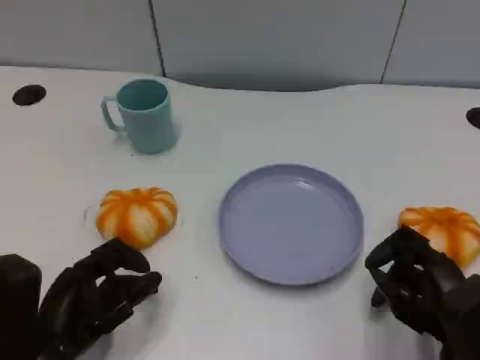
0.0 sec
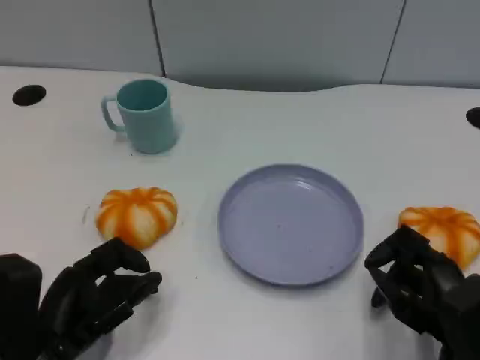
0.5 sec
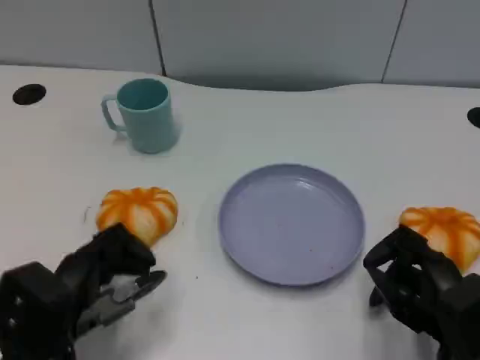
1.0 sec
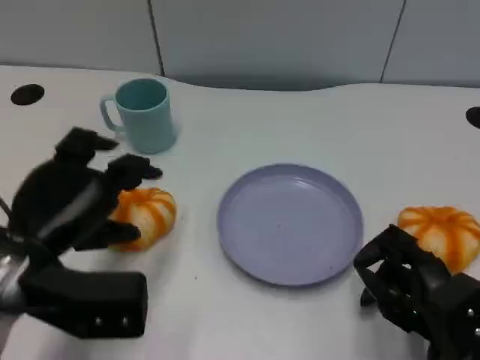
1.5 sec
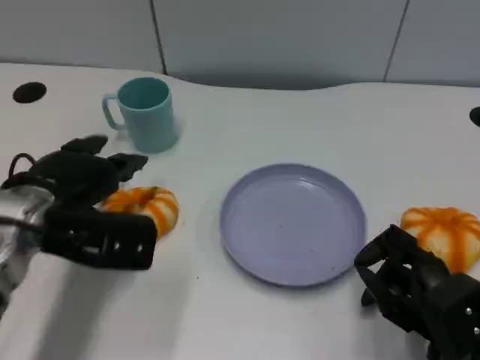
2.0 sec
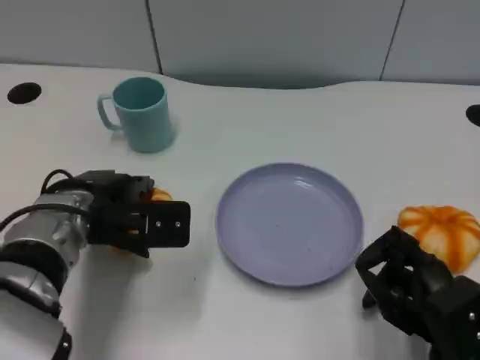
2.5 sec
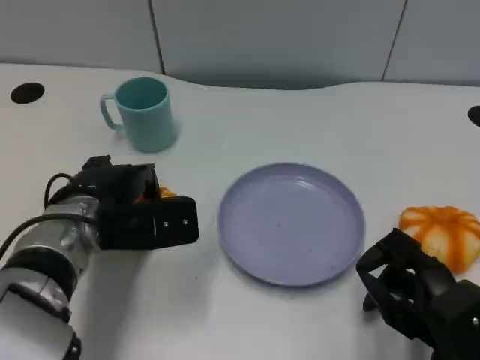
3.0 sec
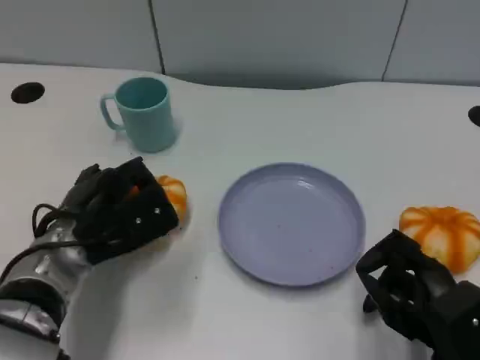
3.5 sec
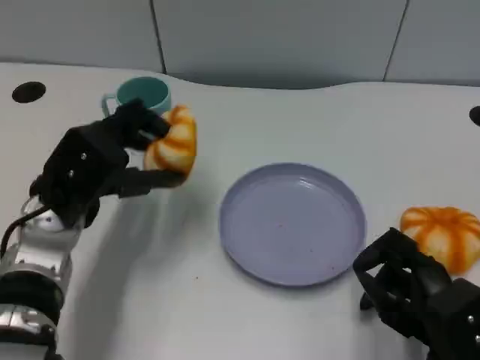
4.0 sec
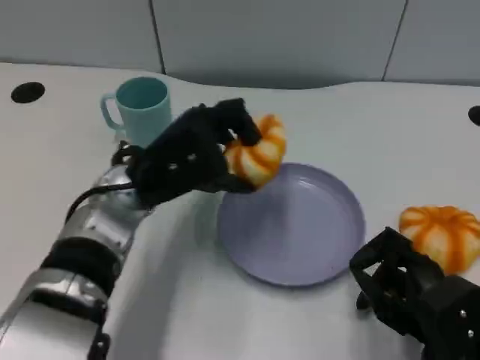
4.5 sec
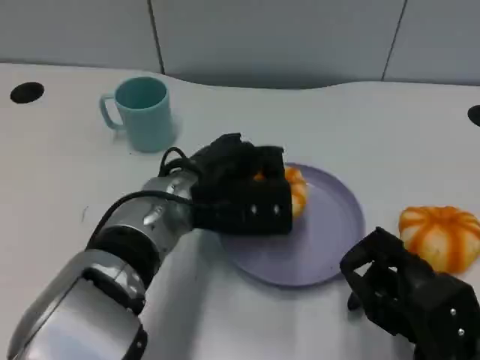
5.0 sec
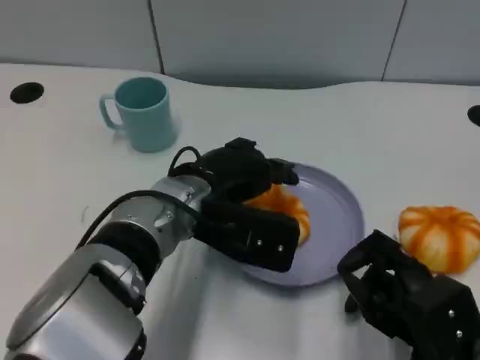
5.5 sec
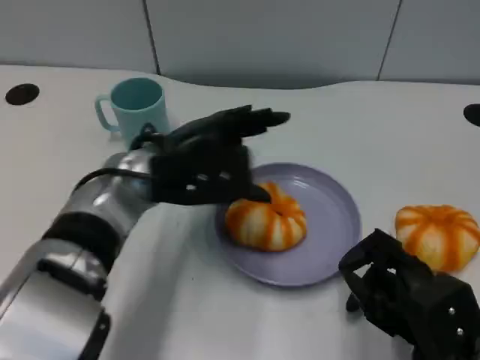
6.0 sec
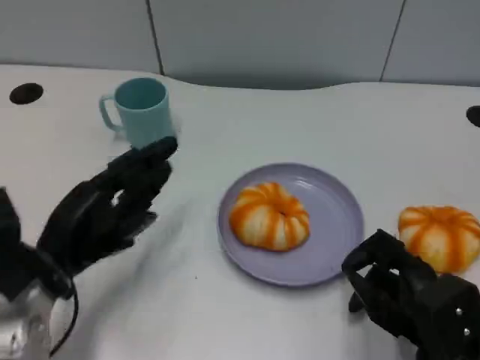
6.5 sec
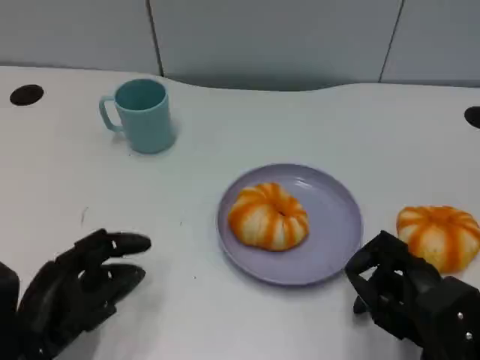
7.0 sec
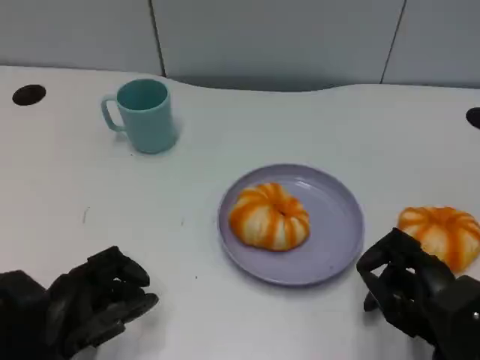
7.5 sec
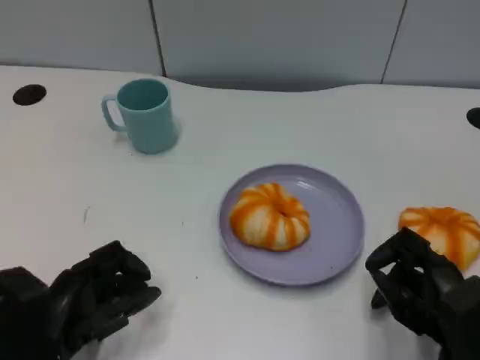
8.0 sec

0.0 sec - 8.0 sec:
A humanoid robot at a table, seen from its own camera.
Task of the whole recording: Grasp the bread from the table and place it into the plate.
0.0 sec - 2.0 sec: The left hand shifts some 15 cm forward and upward.
4.0 sec - 6.0 sec: The left hand travels to the right by some 5 cm.
6.0 sec - 8.0 sec: The left hand heads backward, downward and to the left, covering roughly 20 cm.

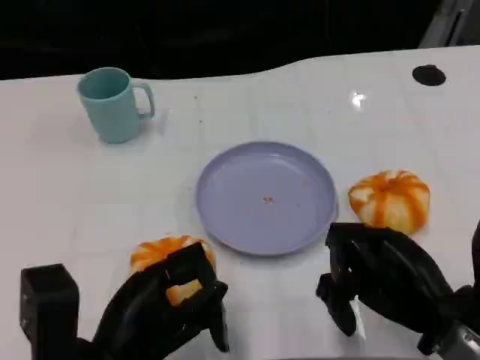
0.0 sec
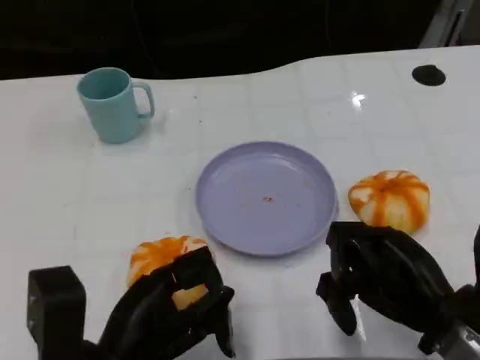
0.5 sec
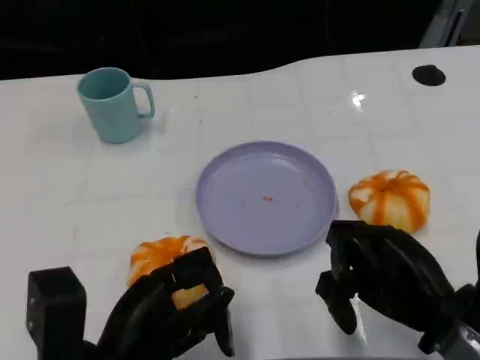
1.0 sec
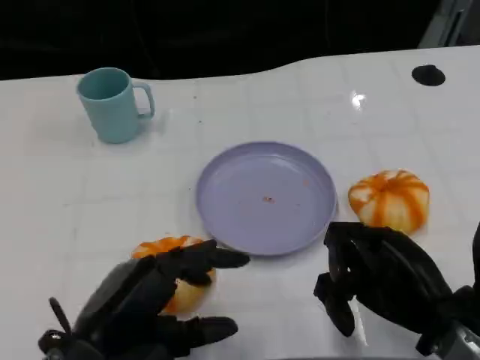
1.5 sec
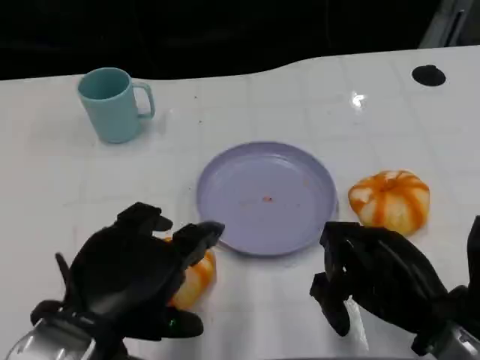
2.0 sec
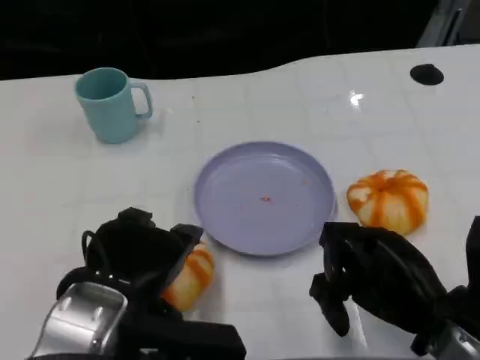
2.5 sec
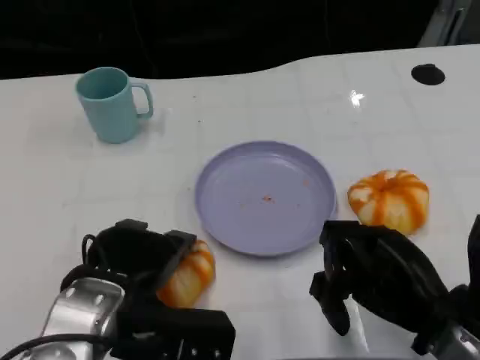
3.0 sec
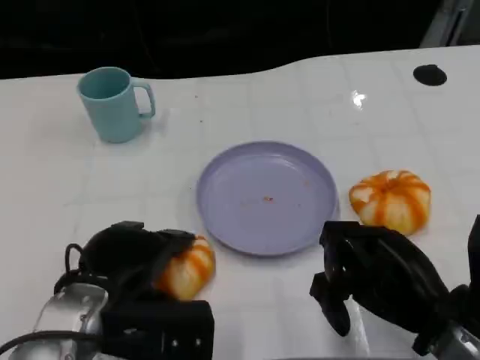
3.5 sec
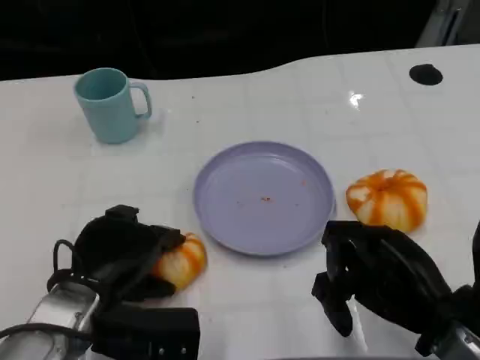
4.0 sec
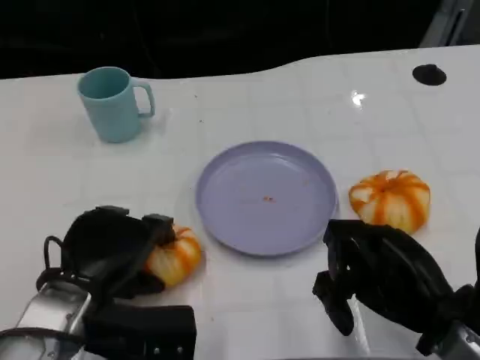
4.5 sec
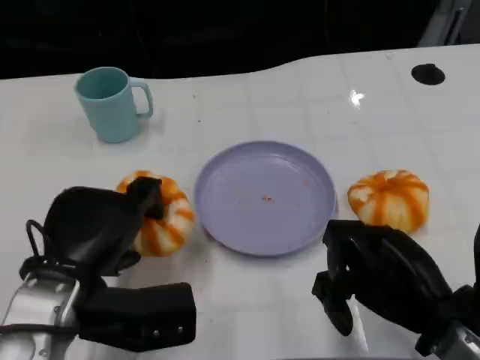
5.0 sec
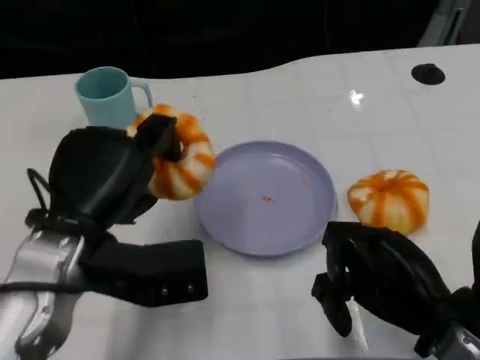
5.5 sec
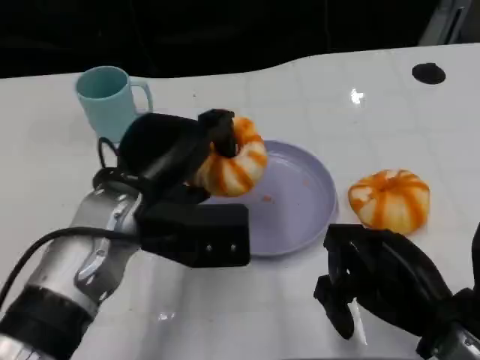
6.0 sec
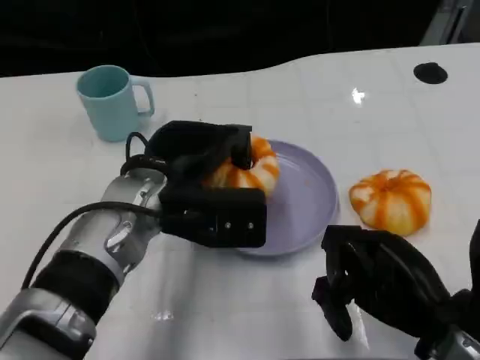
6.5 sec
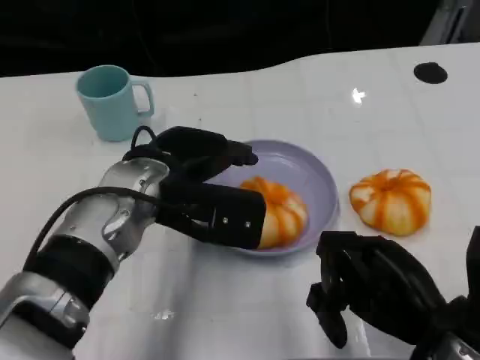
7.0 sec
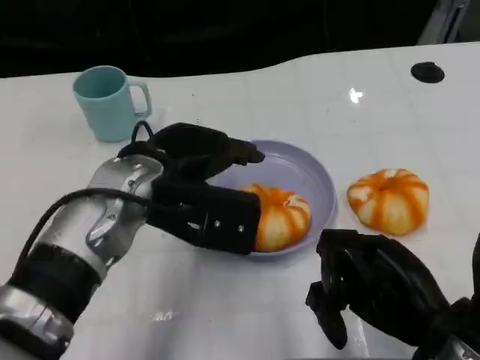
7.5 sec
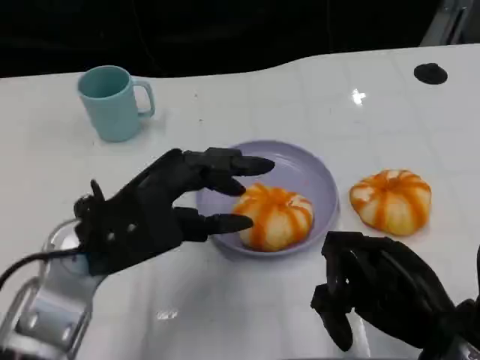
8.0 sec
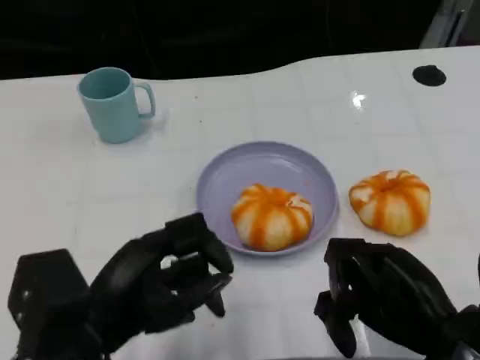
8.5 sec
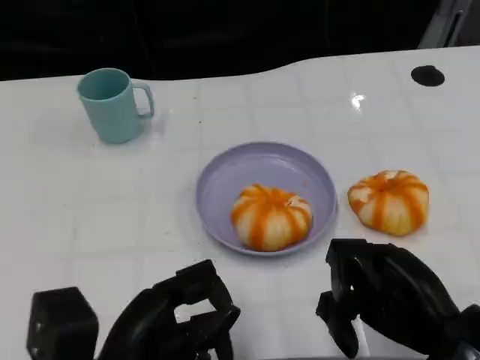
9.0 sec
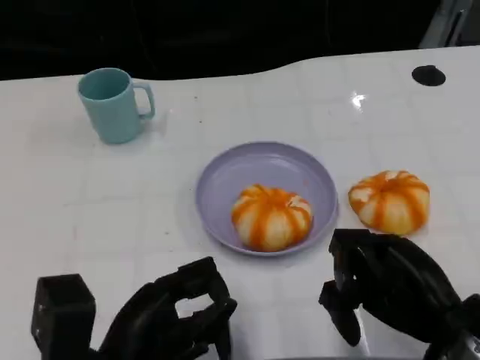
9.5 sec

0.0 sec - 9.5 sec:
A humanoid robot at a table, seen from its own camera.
Task of the whole recording: Grasp the bread from the table and place it into the plate.
0.0 sec - 2.0 sec: The left hand is displaced upward by roughly 10 cm.
2.0 sec - 4.0 sec: The left hand moves downward and forward, about 10 cm.
4.0 sec - 5.5 sec: The left hand is displaced upward by some 10 cm.
5.5 sec - 7.5 sec: The left hand goes about 5 cm to the right and forward.
7.5 sec - 9.5 sec: The left hand travels backward and downward by some 15 cm.

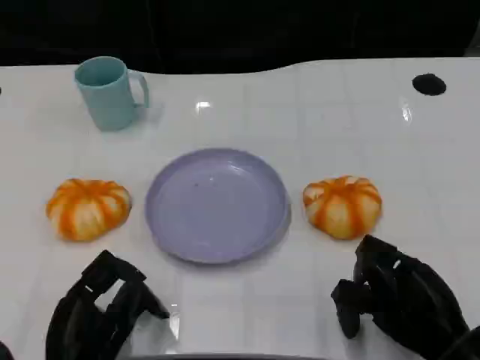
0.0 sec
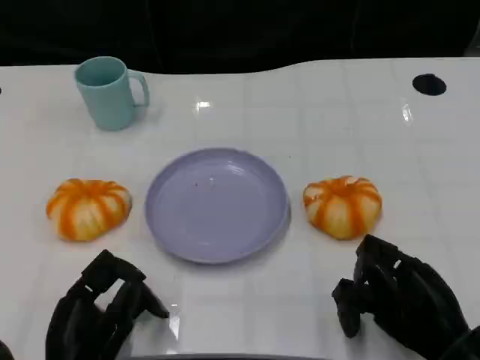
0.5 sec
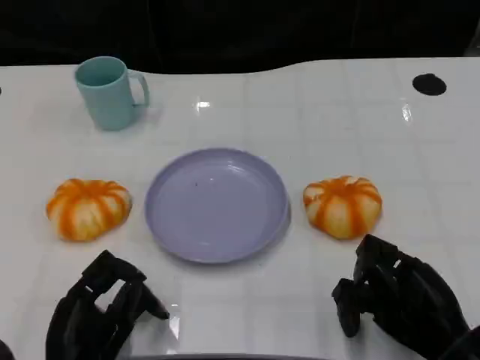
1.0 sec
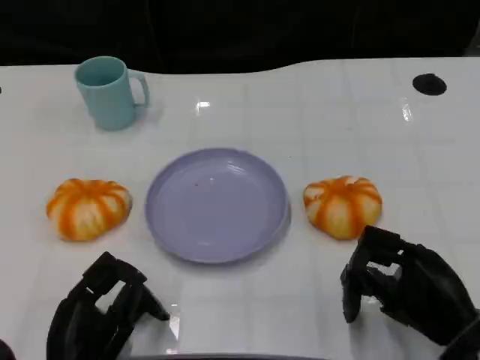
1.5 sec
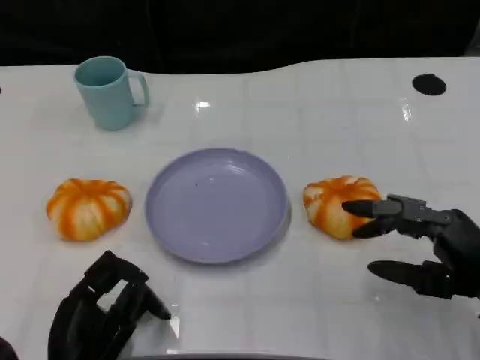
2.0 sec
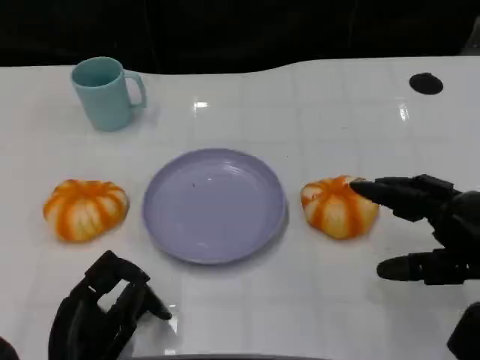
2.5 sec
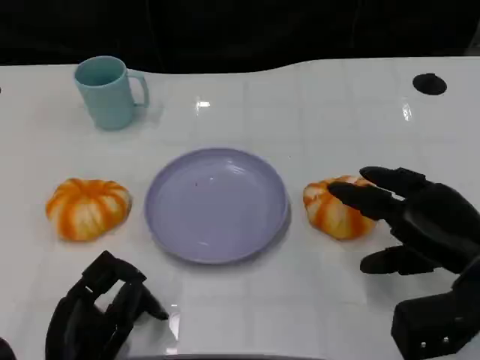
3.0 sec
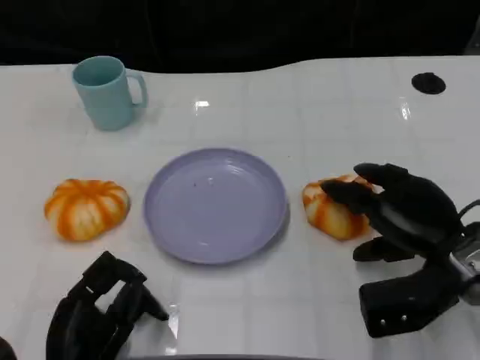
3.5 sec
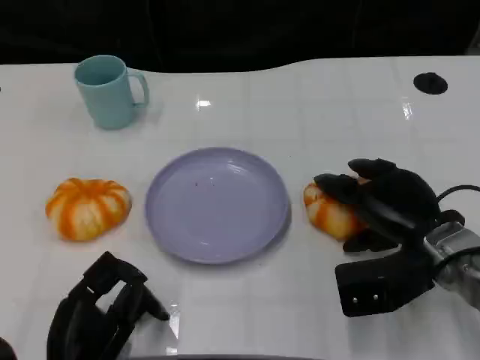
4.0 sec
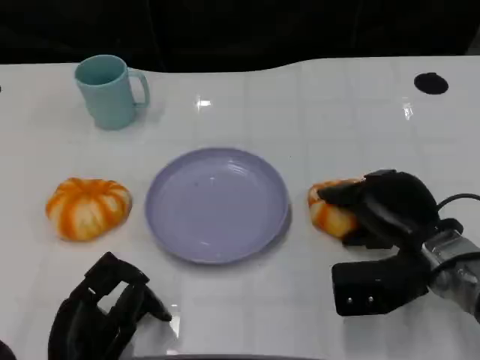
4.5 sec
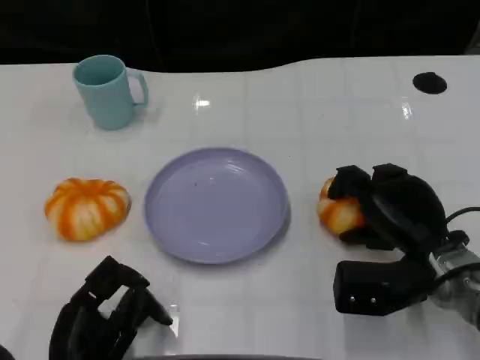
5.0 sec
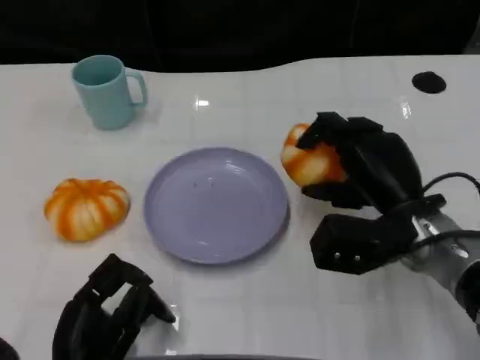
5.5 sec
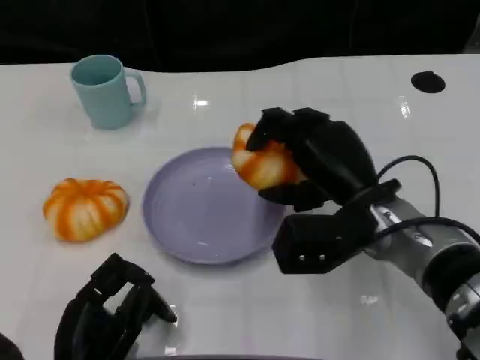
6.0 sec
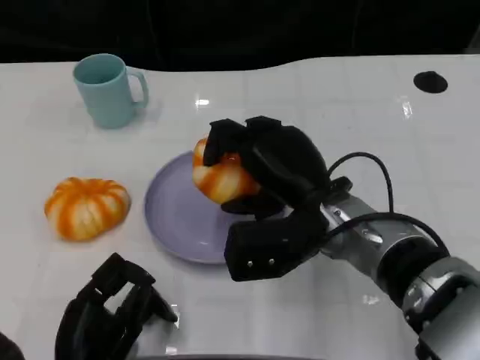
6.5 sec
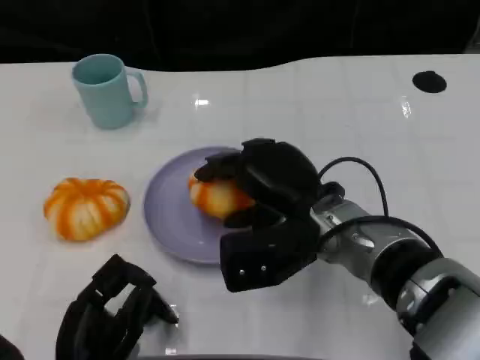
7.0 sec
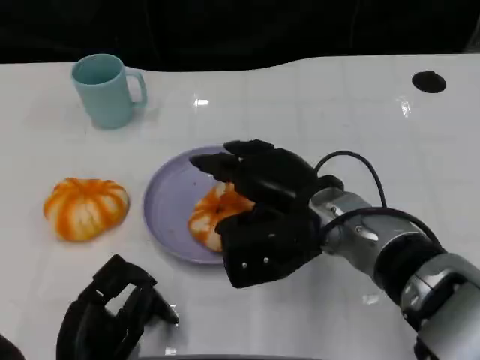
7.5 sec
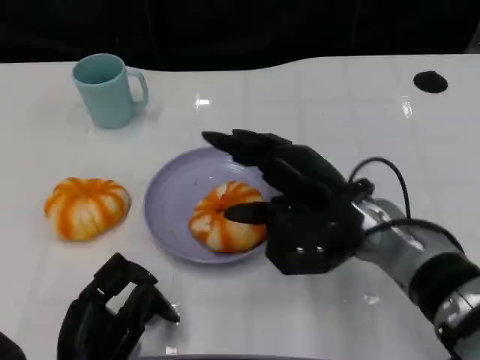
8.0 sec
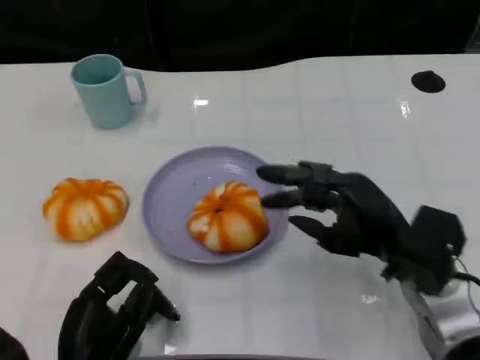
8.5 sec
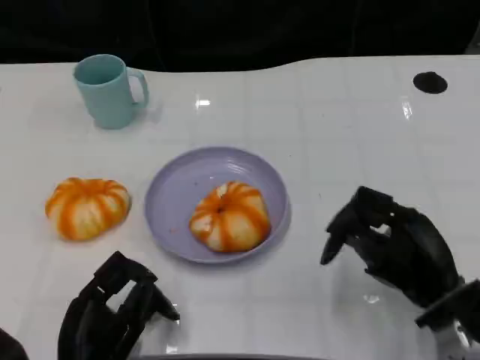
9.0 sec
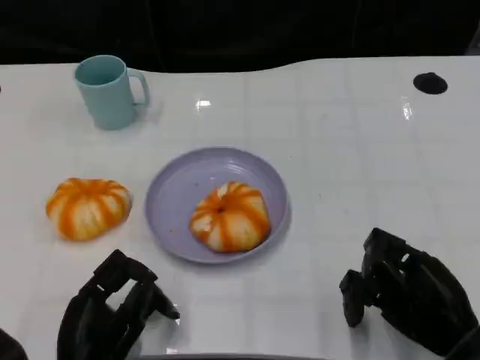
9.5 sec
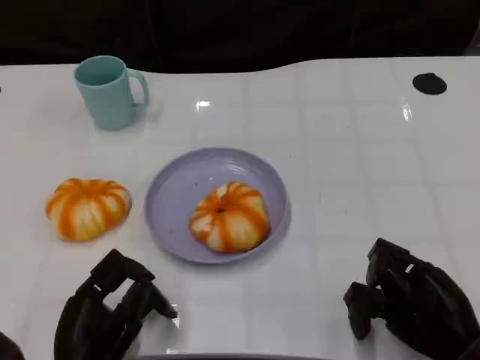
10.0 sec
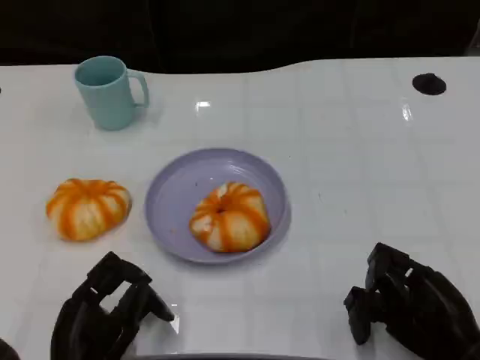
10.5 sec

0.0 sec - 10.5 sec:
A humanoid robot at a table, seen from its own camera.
Task of the whole recording: Grasp the bread from the table and place it into the plate.
0.0 sec - 2.0 sec: The right hand heads upward, covering some 5 cm.
2.0 sec - 4.0 sec: The right hand is displaced forward and to the left by roughly 10 cm.
4.0 sec - 6.5 sec: The right hand travels to the left by roughly 10 cm.
6.5 sec - 8.5 sec: The right hand goes some 10 cm to the right.
8.5 sec - 10.5 sec: The right hand is displaced backward and to the right by approximately 10 cm.
